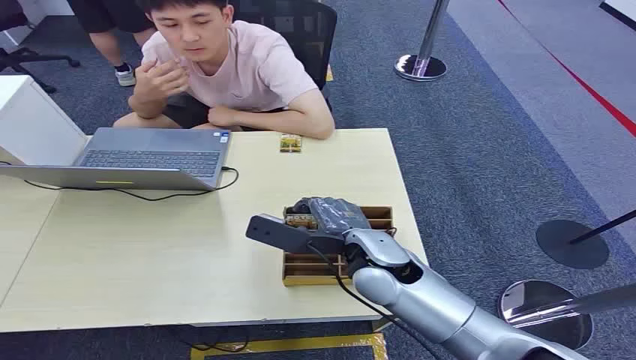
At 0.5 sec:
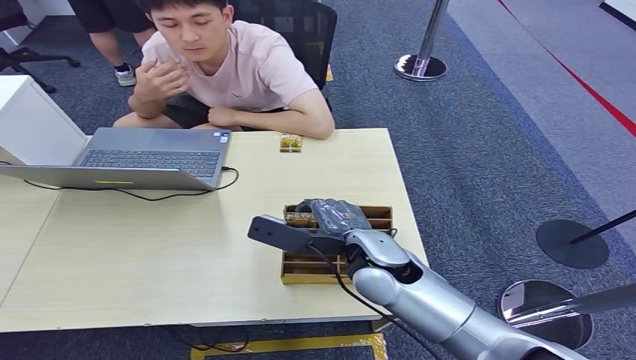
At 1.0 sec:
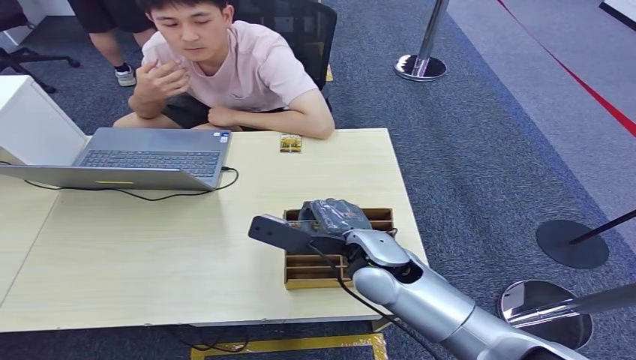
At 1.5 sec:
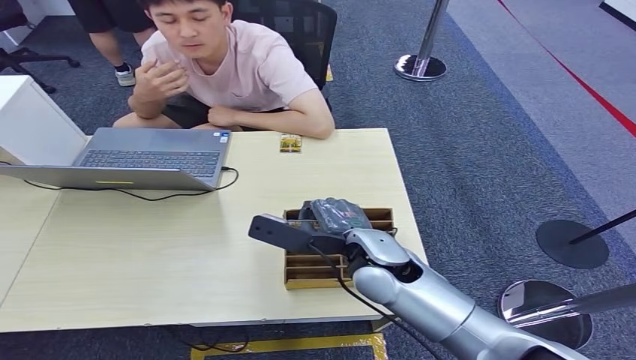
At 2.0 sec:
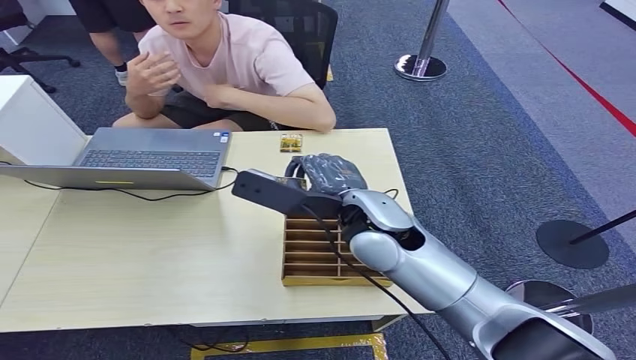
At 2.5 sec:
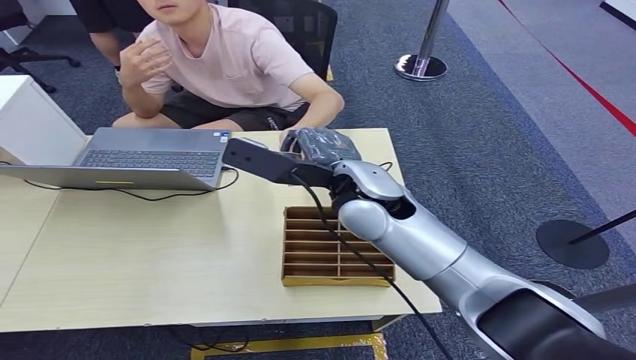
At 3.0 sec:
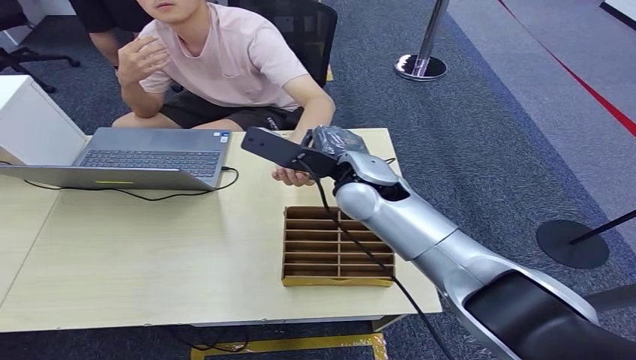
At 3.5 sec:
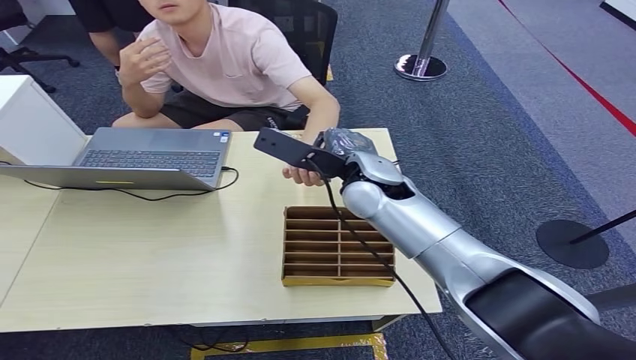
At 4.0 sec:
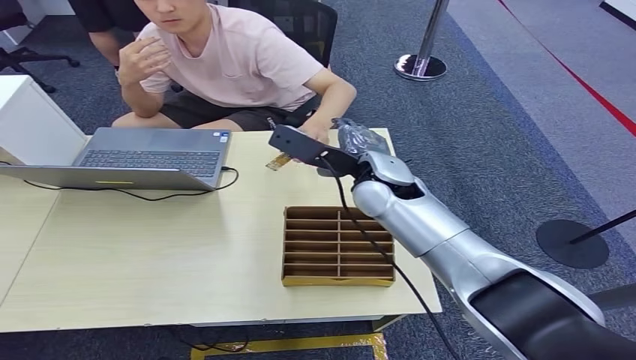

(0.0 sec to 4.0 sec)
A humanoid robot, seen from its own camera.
Step, 0.0 sec - 2.0 sec: Pick up the room card from the card holder.
Step, 2.5 sec - 4.0 sec: Hand the room card to the target.
2.0 sec - 4.0 sec: The right hand heads forward, covering approximately 10 cm.
